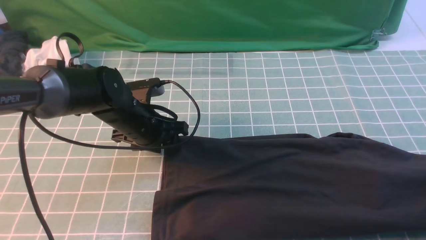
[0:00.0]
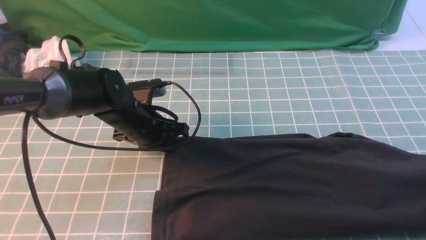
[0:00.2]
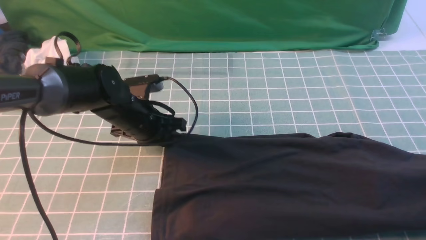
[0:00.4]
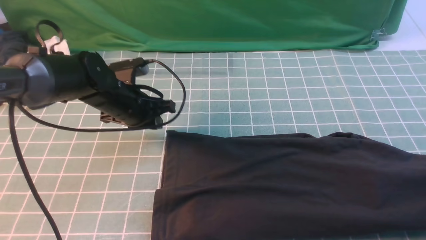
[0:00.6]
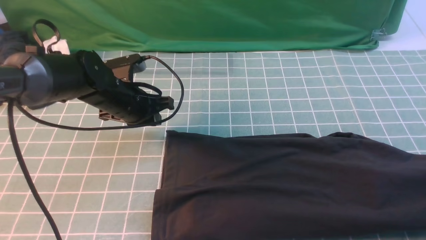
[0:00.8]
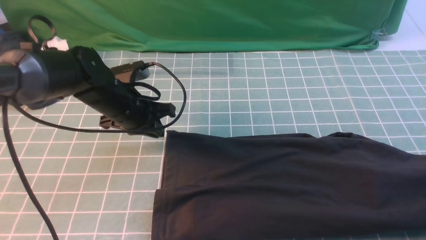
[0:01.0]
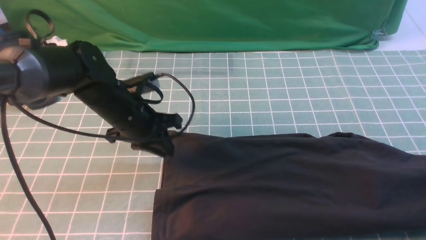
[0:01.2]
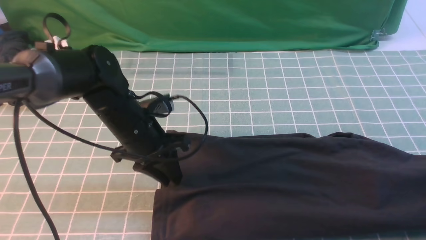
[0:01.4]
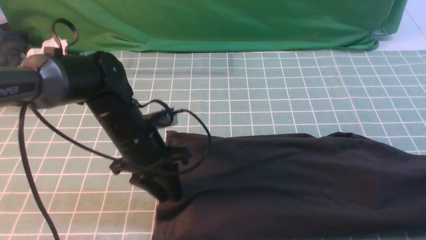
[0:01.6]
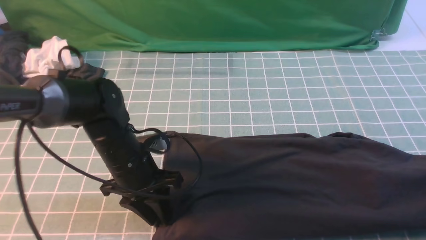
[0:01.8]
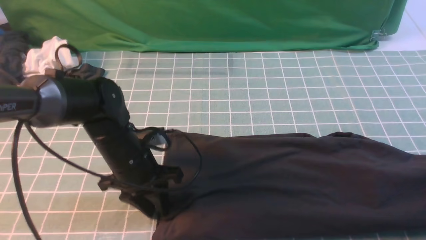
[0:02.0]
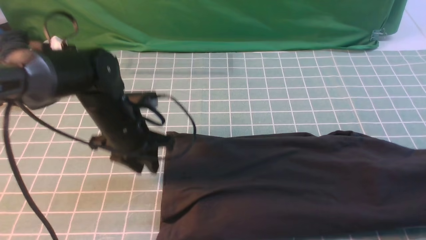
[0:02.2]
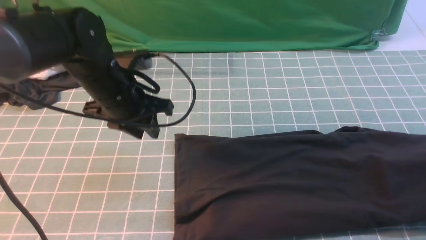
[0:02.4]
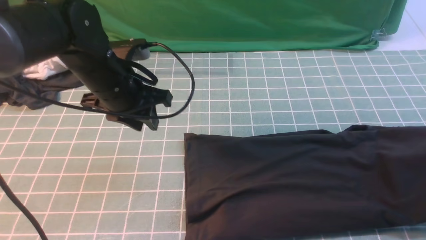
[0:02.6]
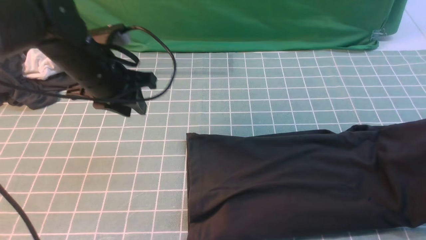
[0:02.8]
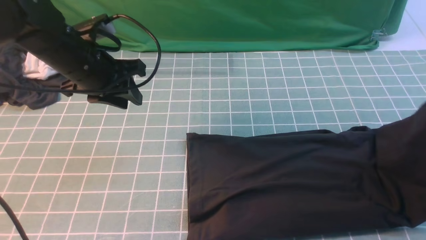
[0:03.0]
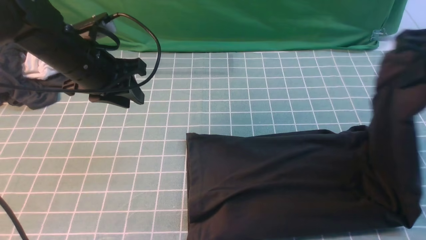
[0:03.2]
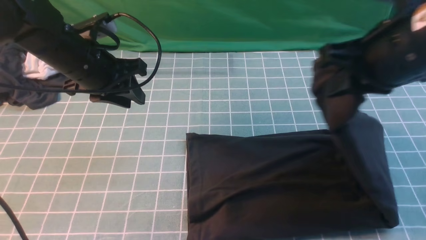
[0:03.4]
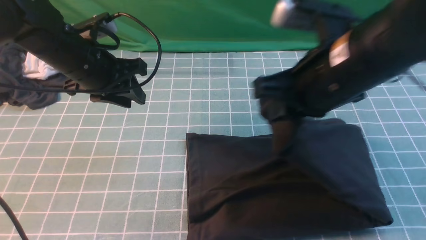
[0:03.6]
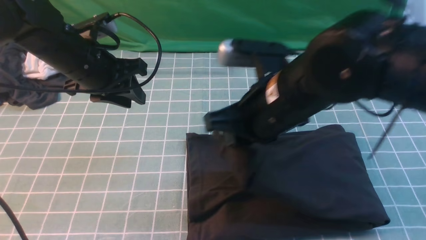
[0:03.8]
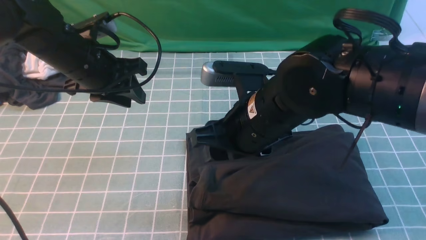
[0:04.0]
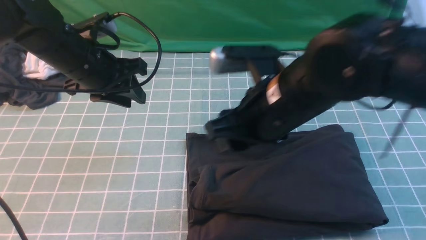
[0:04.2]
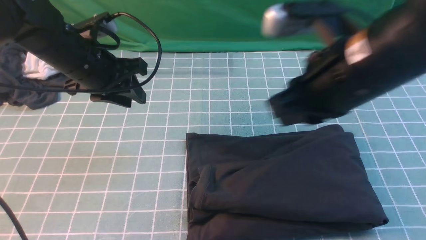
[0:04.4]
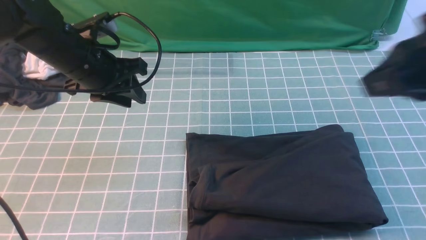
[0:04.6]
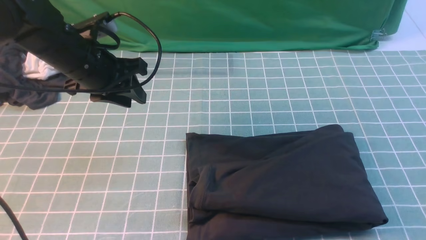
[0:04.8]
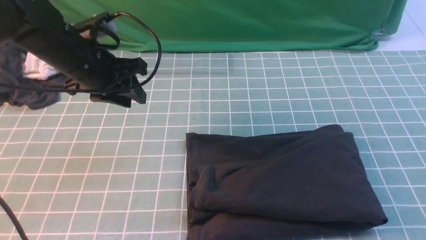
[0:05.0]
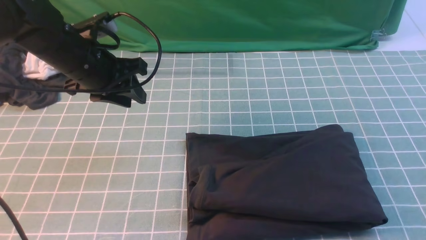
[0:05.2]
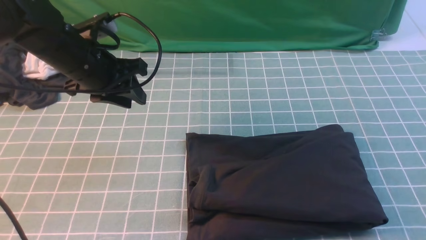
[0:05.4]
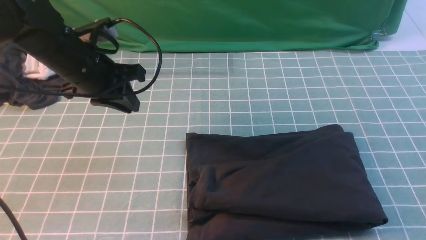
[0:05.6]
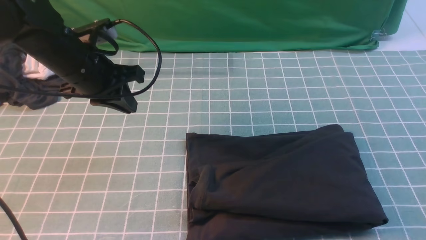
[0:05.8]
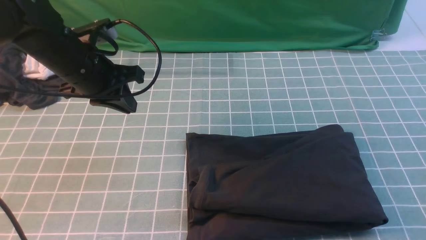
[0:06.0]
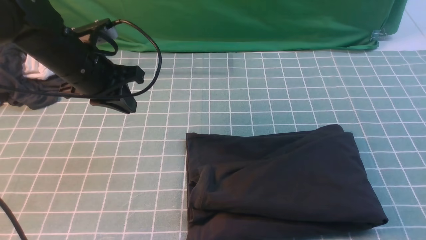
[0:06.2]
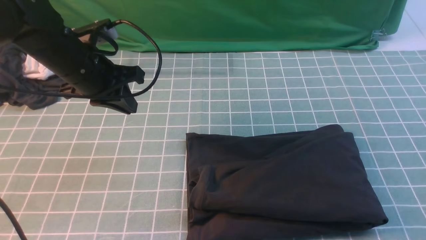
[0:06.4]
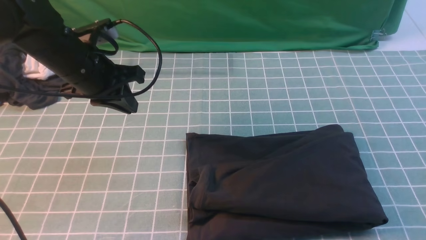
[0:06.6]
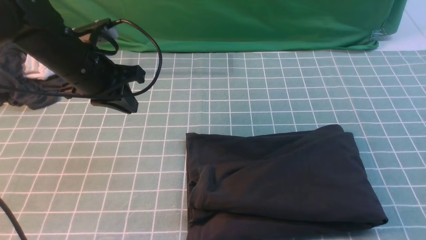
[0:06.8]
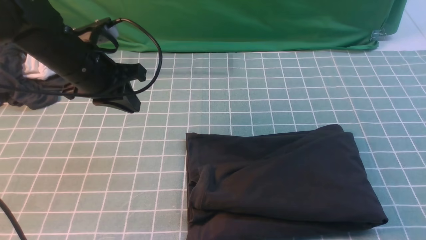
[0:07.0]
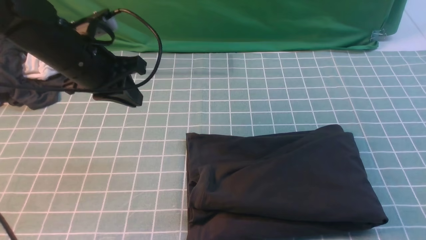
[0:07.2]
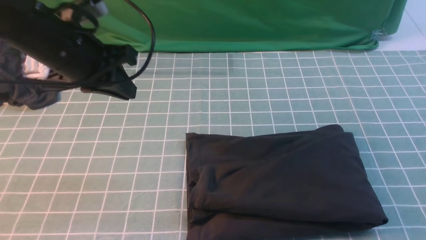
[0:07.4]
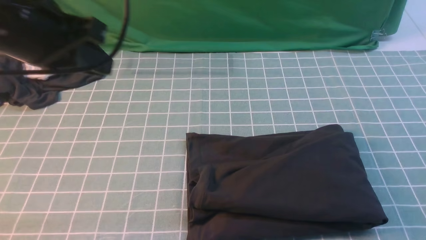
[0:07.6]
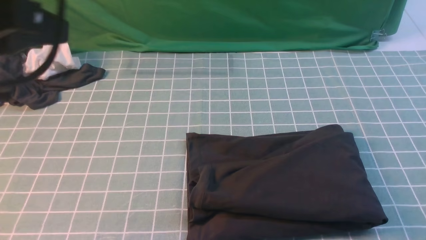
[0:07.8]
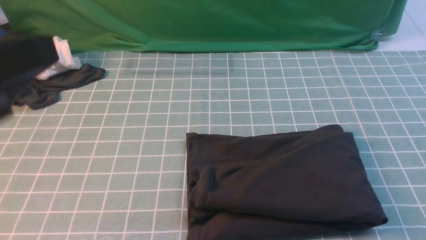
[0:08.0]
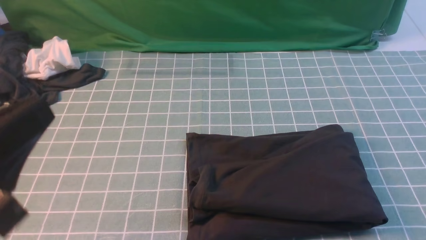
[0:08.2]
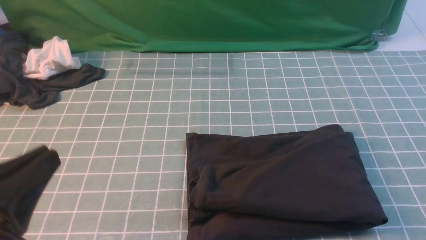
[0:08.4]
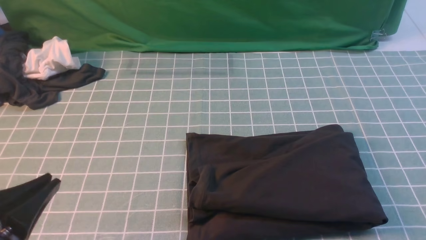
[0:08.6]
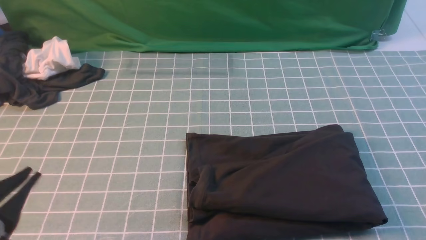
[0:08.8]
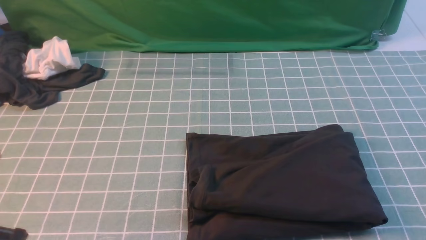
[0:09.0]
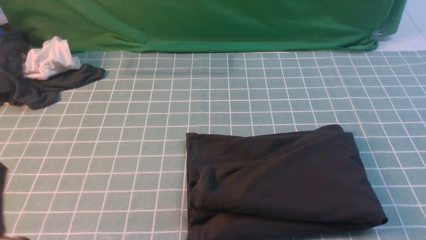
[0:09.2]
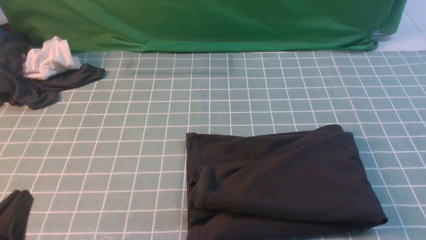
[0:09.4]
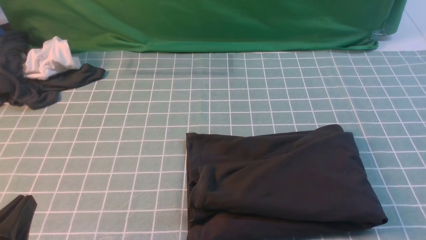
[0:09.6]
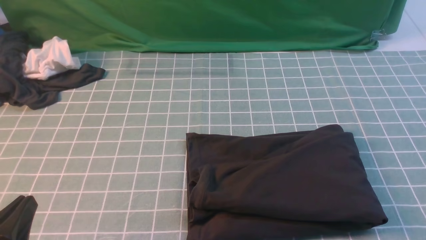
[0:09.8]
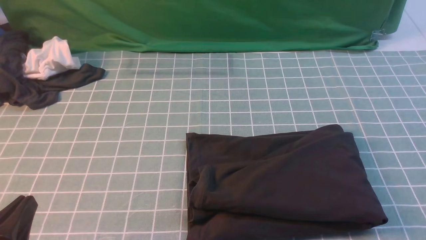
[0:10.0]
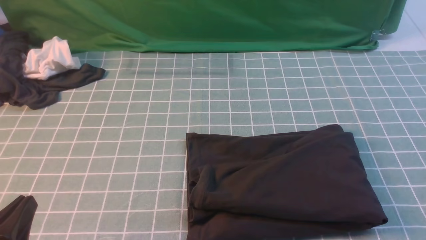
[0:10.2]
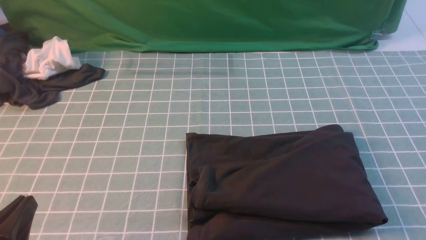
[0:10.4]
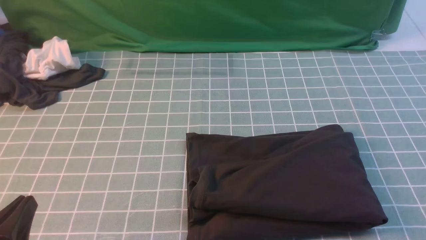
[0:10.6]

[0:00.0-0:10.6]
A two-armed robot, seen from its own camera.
Step, 0:00.0 to 0:02.4: use the right arm to clamp the right edge of the fabric.
Step, 0:02.6 to 0:04.4: use the right arm to drag the right edge of the fabric to the left and folds it over the left edge.
0:00.0 to 0:01.6: The left gripper closes, then opens again.
0:01.6 to 0:03.0: The right gripper is displaced upward and to the left by roughly 20 cm. Meanwhile the left gripper goes some 15 cm upward, to the left and forward.
0:03.0 to 0:04.6: The right gripper is displaced to the left, backward and upward by roughly 15 cm, and opens and closes again.
0:04.6 to 0:06.0: The right gripper heads downward, backward and to the right, covering approximately 20 cm. The left gripper closes.
0:06.0 to 0:07.6: The left gripper heads upward and backward, covering about 20 cm. The right gripper is displaced downward by some 10 cm.
0:07.6 to 0:09.0: The left gripper heads backward and downward, covering approximately 25 cm.
0:09.0 to 0:10.6: The left gripper shifts about 5 cm downward.
